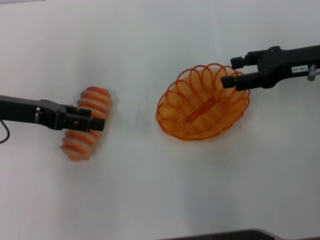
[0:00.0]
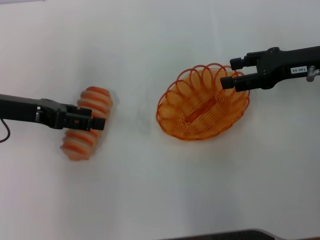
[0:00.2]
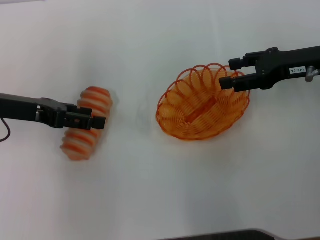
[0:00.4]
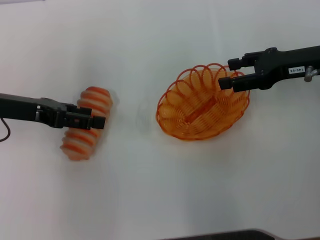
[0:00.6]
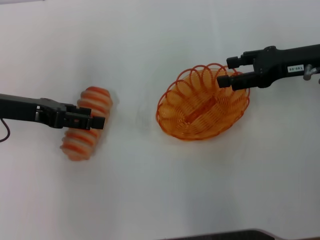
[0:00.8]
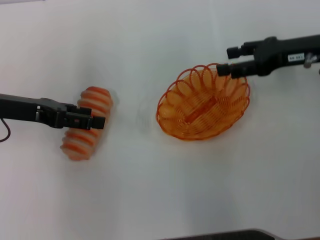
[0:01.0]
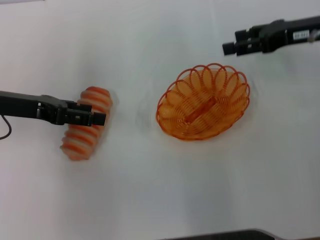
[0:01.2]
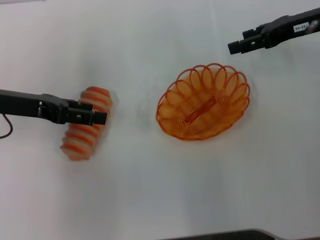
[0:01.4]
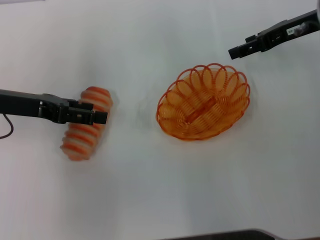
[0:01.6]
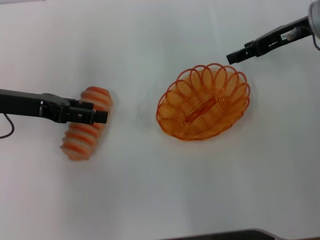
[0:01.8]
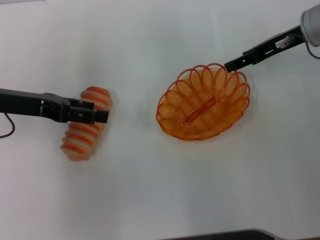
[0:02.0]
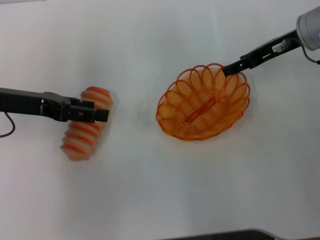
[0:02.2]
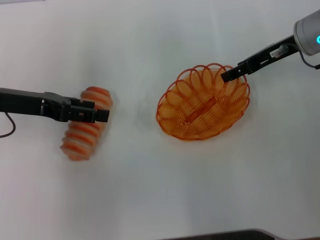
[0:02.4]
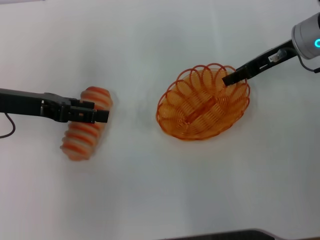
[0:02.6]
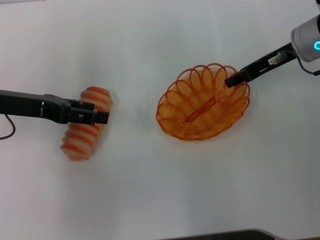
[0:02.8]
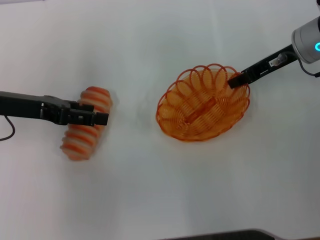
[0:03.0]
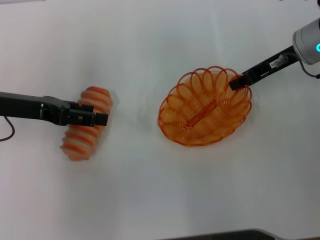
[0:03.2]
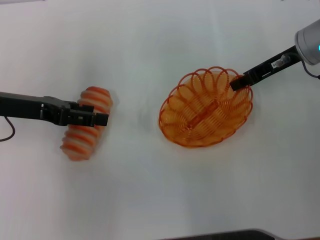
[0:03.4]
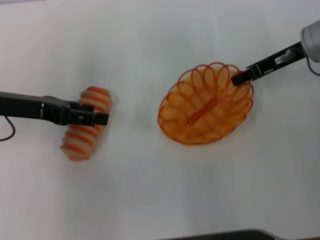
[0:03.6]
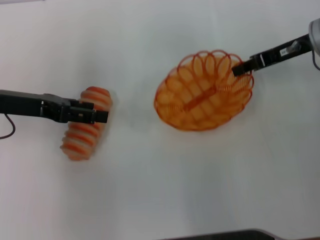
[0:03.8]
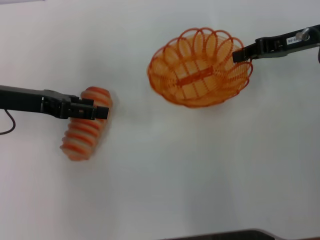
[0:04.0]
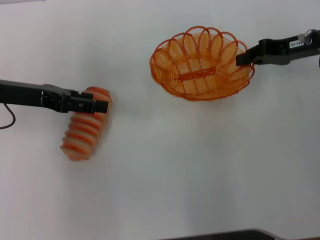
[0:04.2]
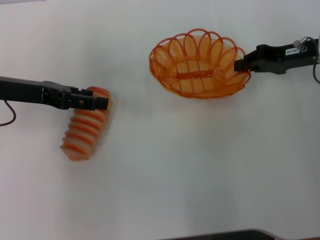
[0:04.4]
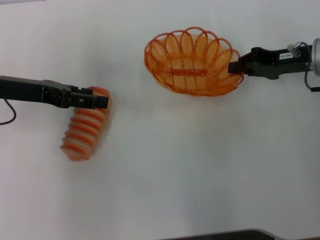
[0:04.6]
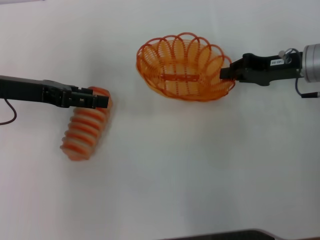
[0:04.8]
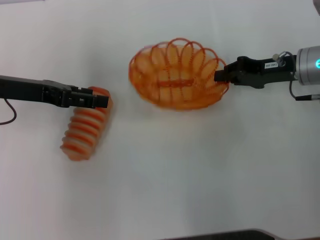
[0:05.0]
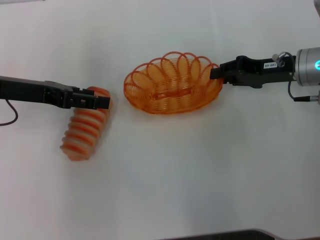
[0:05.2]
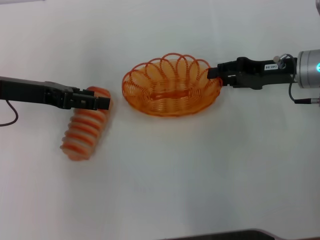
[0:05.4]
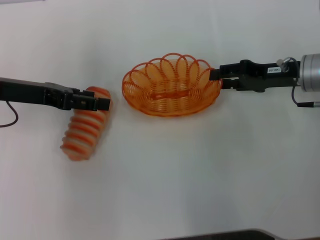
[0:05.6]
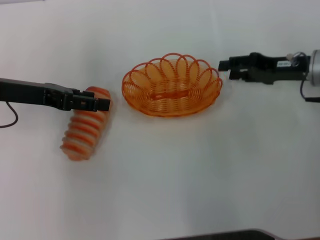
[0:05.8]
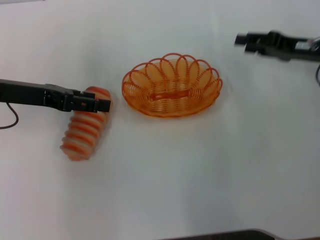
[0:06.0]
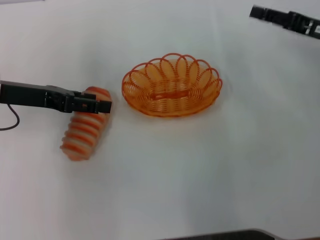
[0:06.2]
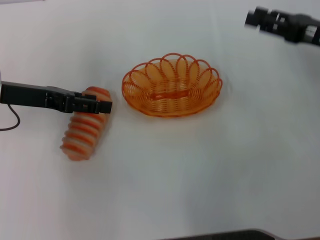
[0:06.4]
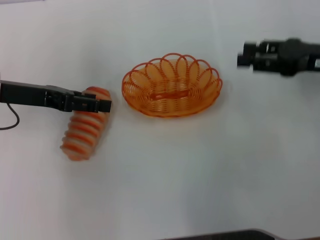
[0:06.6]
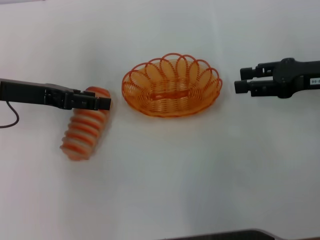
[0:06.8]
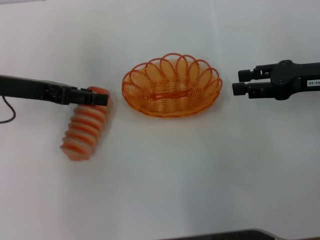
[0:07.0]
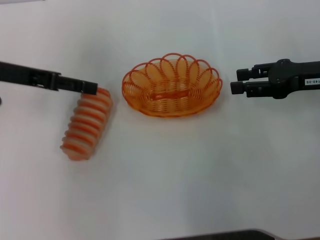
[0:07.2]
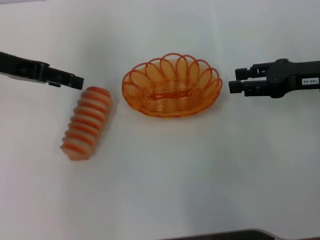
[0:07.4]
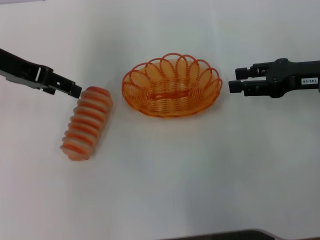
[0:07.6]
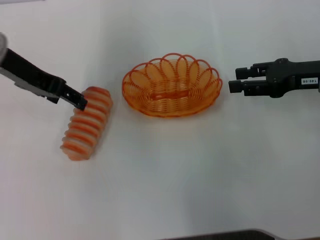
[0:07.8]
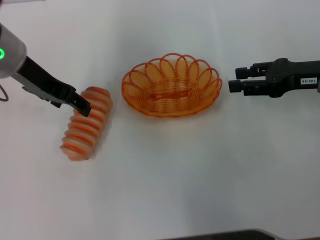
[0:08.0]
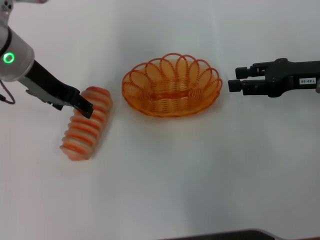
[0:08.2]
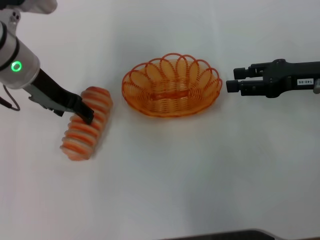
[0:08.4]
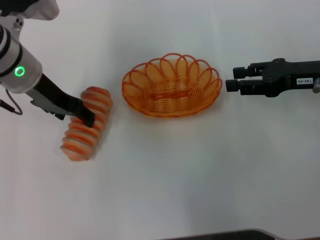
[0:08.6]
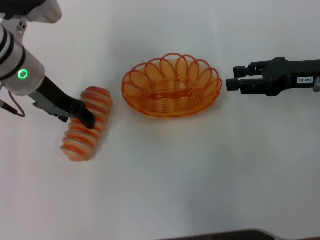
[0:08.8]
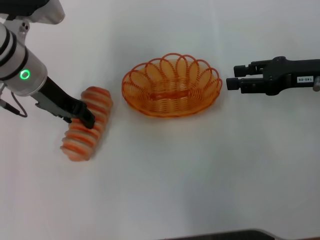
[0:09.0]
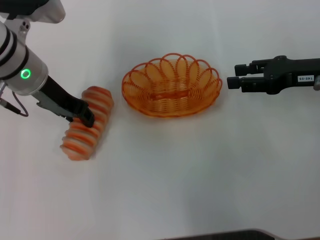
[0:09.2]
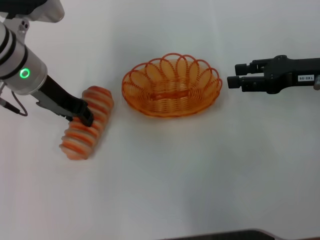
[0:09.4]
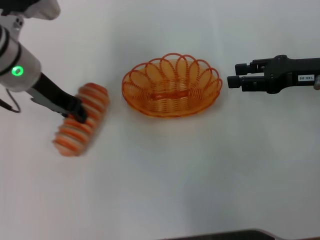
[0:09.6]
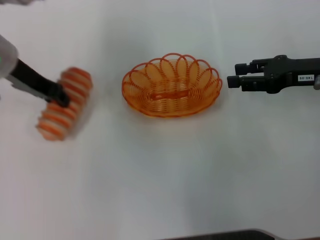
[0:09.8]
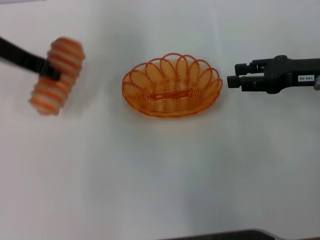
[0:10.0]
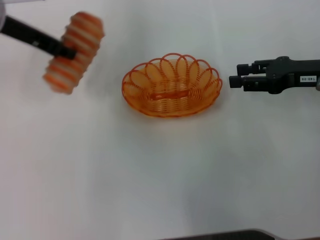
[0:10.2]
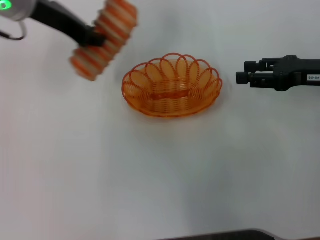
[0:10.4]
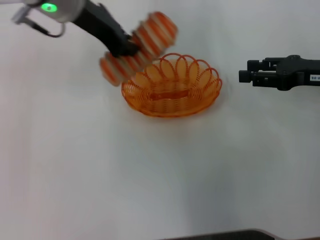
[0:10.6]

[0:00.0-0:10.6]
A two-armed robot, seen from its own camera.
Step, 0:00.0 to 0:03.8: Pick up the basket with the right gripper.
Step, 0:04.2 to 0:05.8: Place the basket in the center of view with the right gripper.
Step, 0:06.0 to 0:09.8: Pick up the long bread with the left gripper.
0:00.0 to 0:01.6: The right gripper shifts approximately 5 cm forward.
0:01.6 to 0:03.0: The right gripper closes its fingers.
0:03.0 to 0:04.6: The right gripper changes place by about 5 cm.
0:04.6 to 0:06.0: The right gripper opens.
0:06.0 to 0:07.6: The left gripper shifts approximately 5 cm upward.
0:07.6 to 0:09.0: The left gripper heads to the right and downward, covering some 10 cm.
0:09.0 to 0:10.6: The left gripper heads upward and to the right, covering approximately 10 cm, and closes.

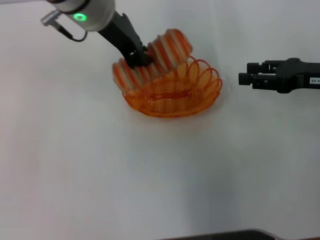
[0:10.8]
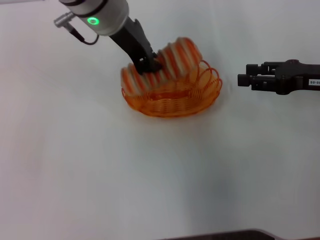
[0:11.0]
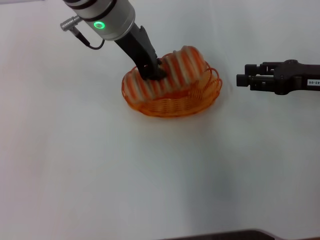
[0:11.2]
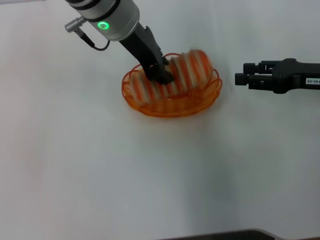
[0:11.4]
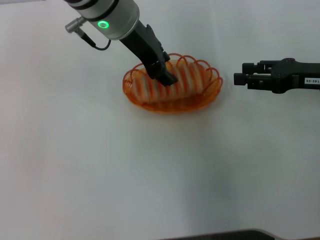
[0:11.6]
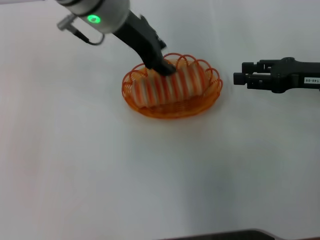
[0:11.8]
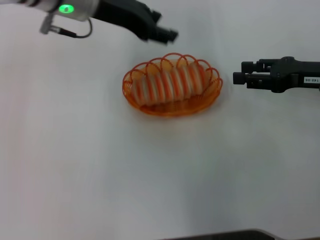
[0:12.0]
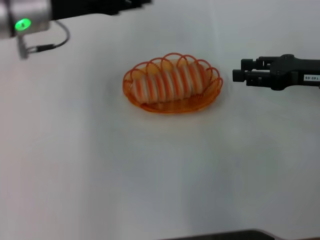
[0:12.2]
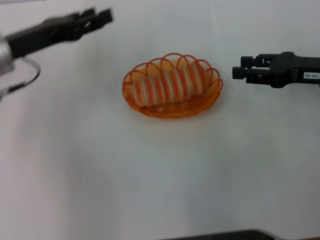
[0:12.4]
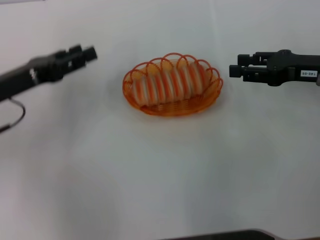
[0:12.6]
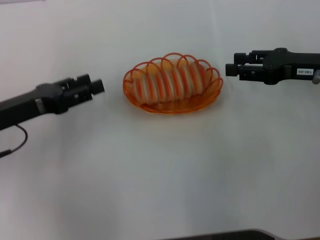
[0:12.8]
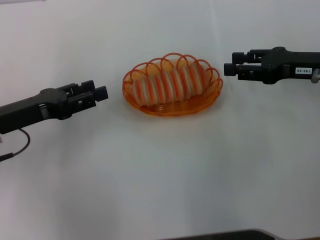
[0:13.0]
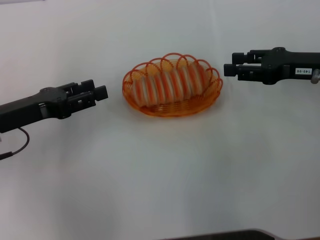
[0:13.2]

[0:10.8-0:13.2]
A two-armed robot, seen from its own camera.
Step, 0:10.8 to 0:11.8: Place the long bread into the basket with the left gripper.
0:10.8 to 0:12.0: The left gripper opens up.
0:12.0 to 0:13.2: The left gripper goes roughly 20 cm to the left, backward and downward.
